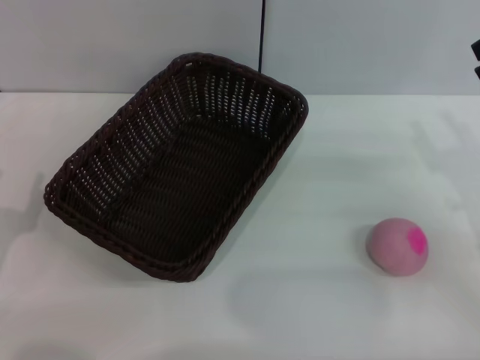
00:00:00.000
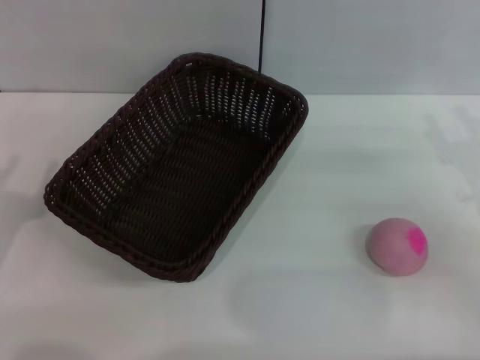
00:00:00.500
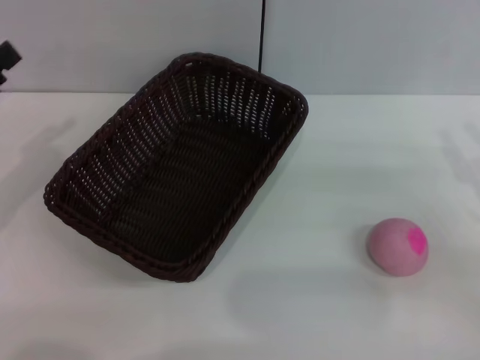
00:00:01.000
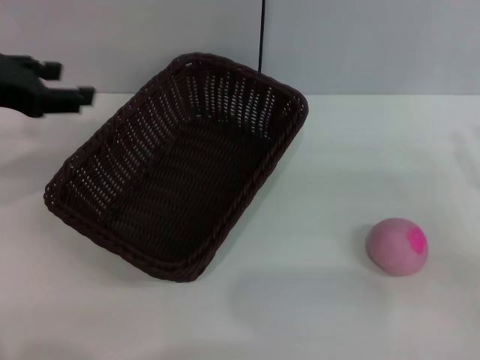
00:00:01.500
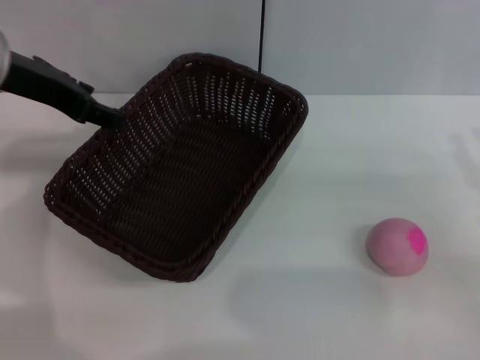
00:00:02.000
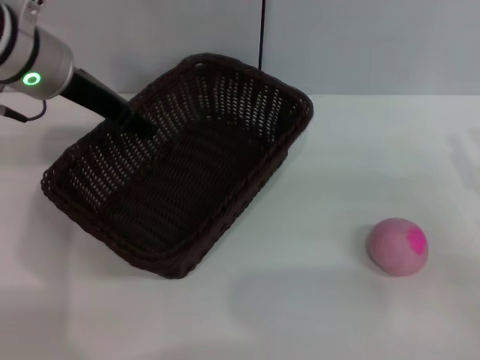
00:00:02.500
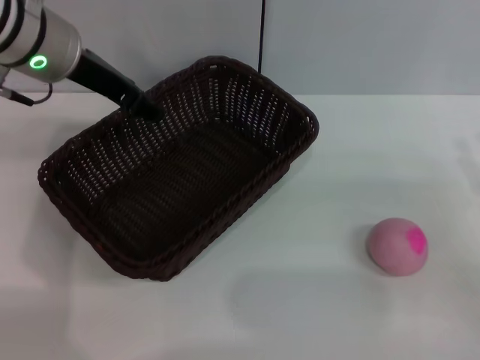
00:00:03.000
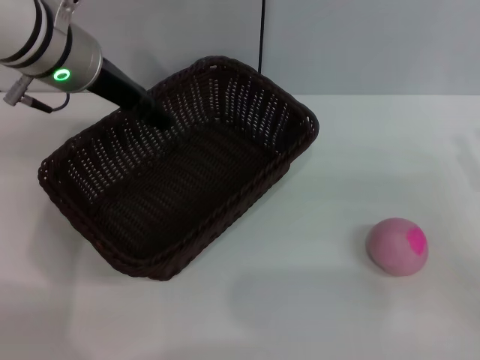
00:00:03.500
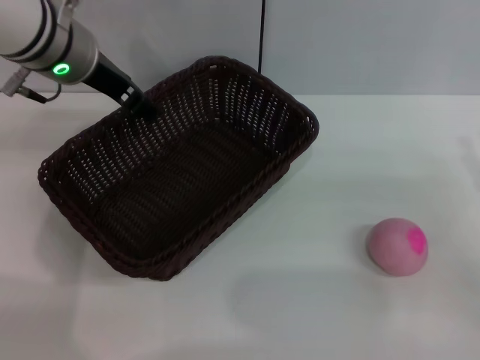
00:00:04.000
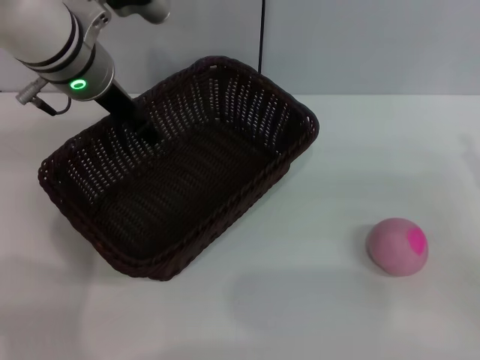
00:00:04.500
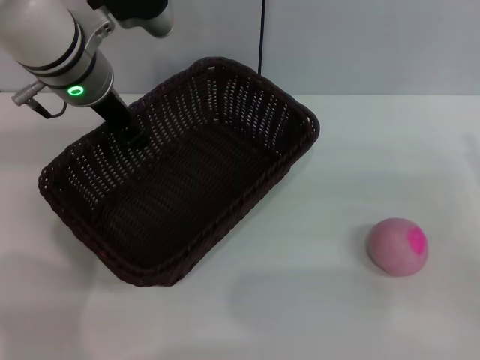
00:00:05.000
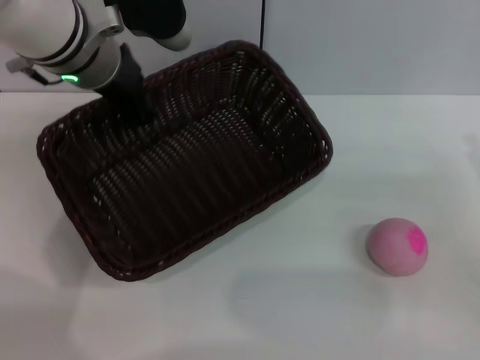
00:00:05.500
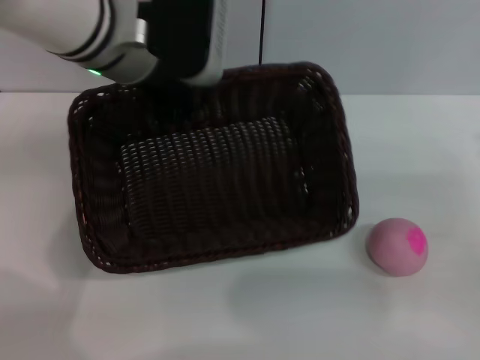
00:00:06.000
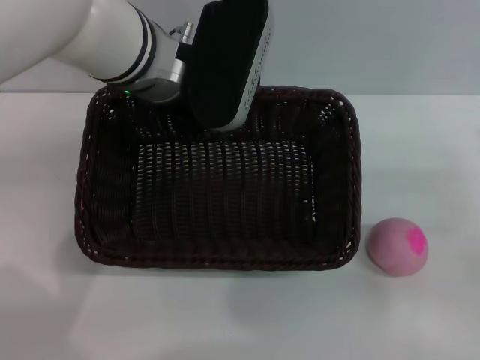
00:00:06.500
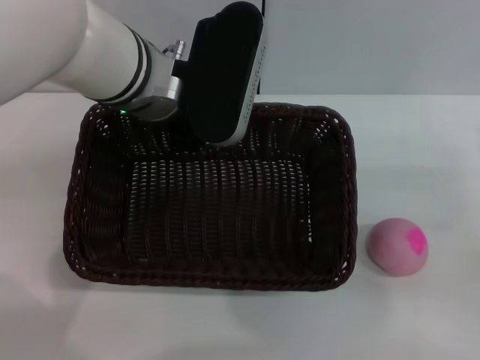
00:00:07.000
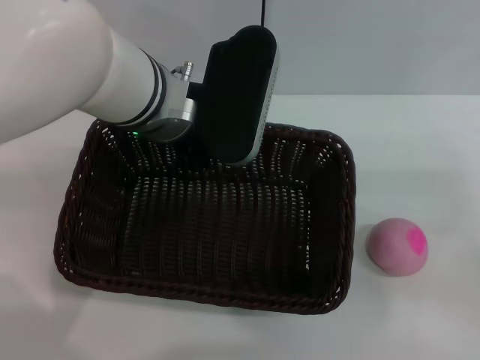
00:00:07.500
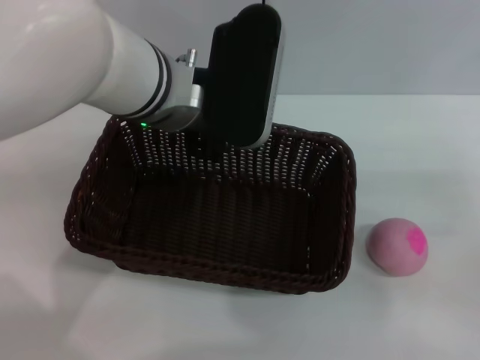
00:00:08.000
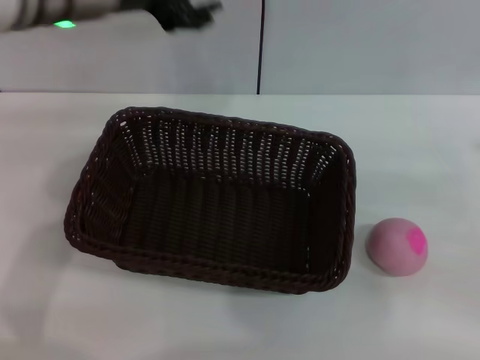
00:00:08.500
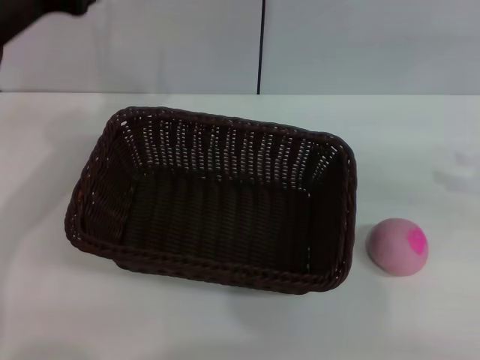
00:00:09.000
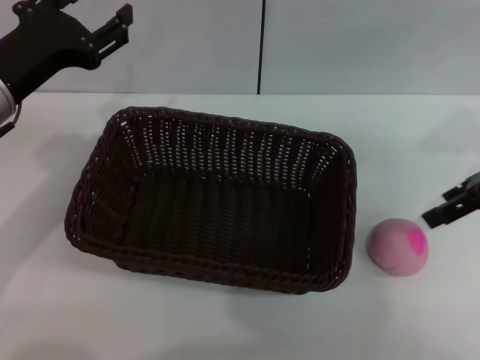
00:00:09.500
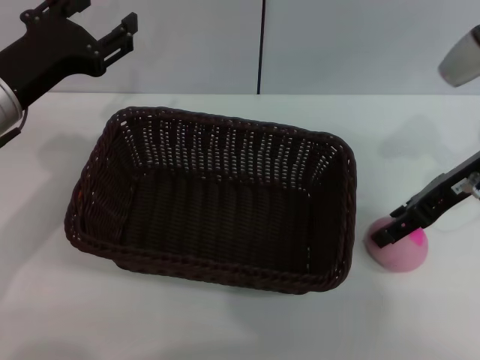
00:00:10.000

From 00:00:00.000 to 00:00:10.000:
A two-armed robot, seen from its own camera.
Step, from 00:00:00.000 to 00:00:05.500: Pick up the dark basket with the left gripper.
Step, from 00:00:06.000 to 00:00:08.000: Place the dark basket in the center of view with the right gripper.
From 00:00:00.000 to 00:00:02.000: The left gripper shifts some 30 cm upward, forward and to the right.
From 00:00:02.000 to 00:00:04.000: The left gripper is displaced to the right by some 5 cm.
From 00:00:04.000 to 00:00:06.000: The left gripper heads to the right, covering approximately 5 cm, and closes its fingers.
From 00:00:06.000 to 00:00:08.000: The left gripper ends up some 5 cm from where it was, and opens its fingers.
From 00:00:08.000 to 00:00:10.000: The right gripper shifts roughly 20 cm forward, to the left and upward. The left gripper heads to the left, covering roughly 15 cm.

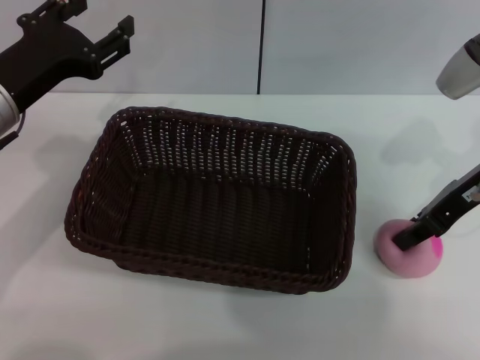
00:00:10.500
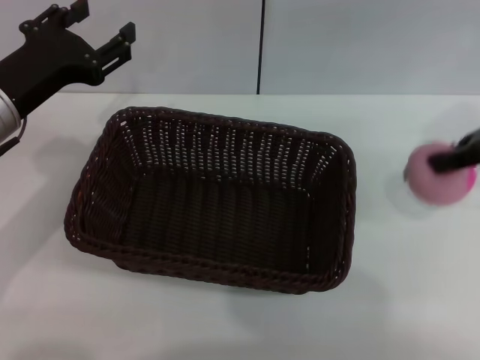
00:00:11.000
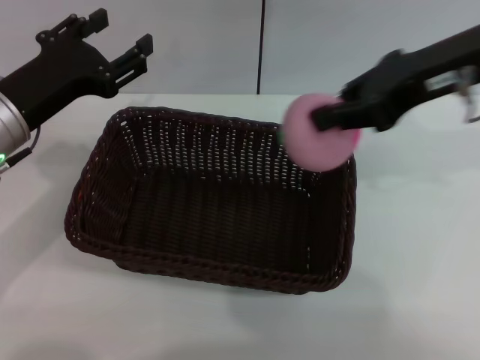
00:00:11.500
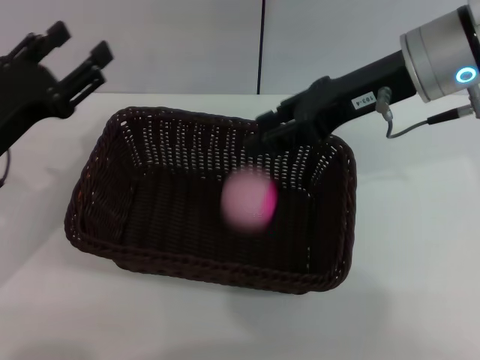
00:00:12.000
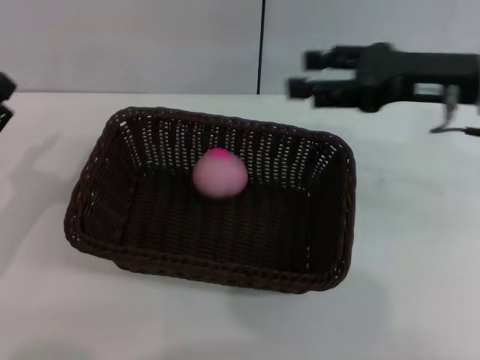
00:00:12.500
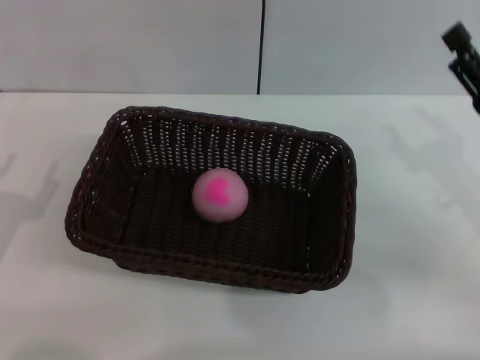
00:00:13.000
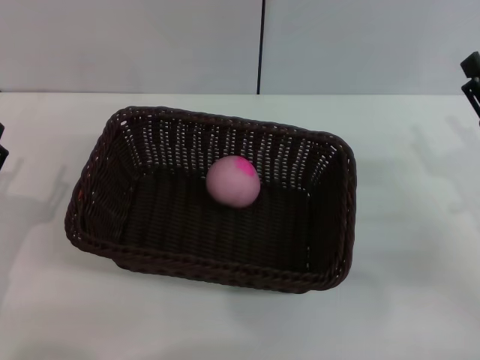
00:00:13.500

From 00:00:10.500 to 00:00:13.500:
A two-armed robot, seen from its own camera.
Step, from 00:00:11.500 to 00:00:12.000: Place the peach into the basket with the left gripper.
From 00:00:10.500 to 00:00:12.000: The right gripper travels to the left and upward by roughly 10 cm; the left gripper changes place by about 5 cm.
From 00:00:12.000 to 00:00:13.500: The left gripper goes about 10 cm backward and downward. Meanwhile the right gripper moves downward, to the right and backward, roughly 25 cm, and opens its fingers.

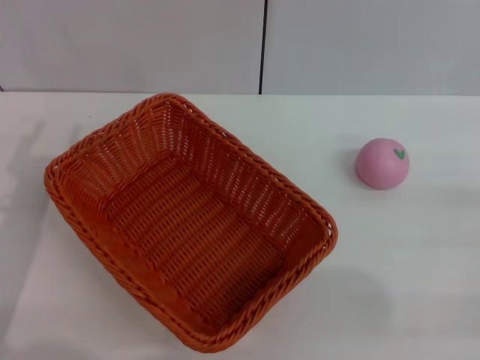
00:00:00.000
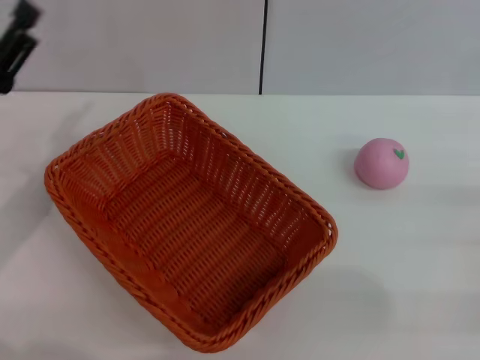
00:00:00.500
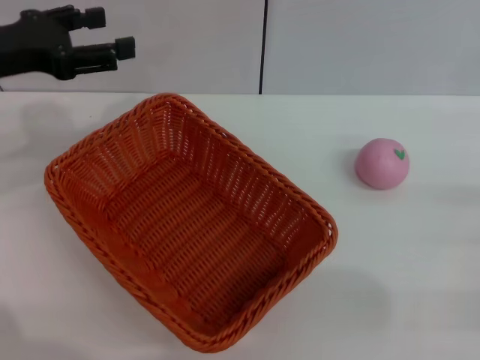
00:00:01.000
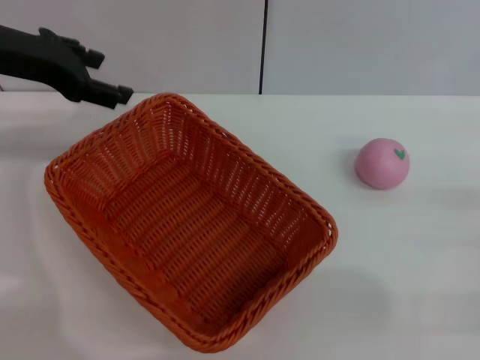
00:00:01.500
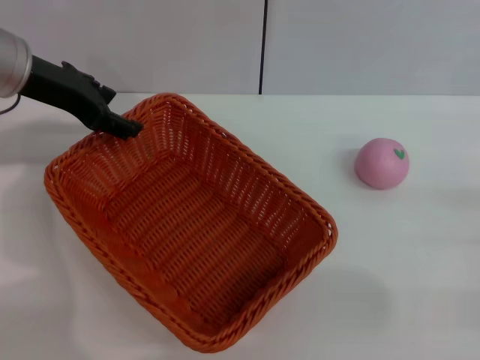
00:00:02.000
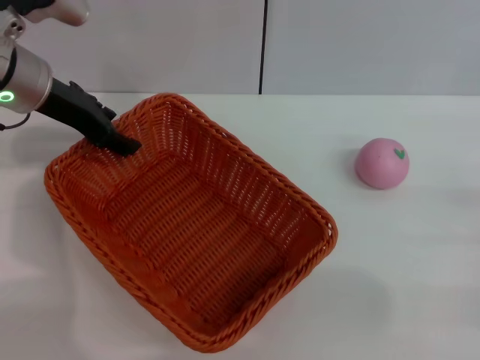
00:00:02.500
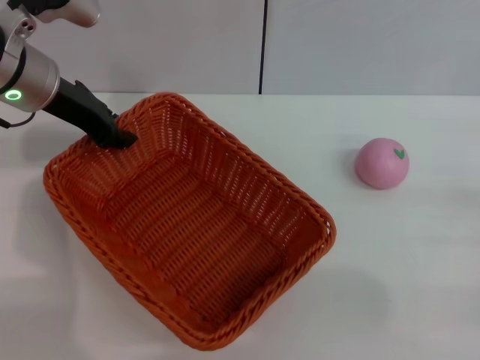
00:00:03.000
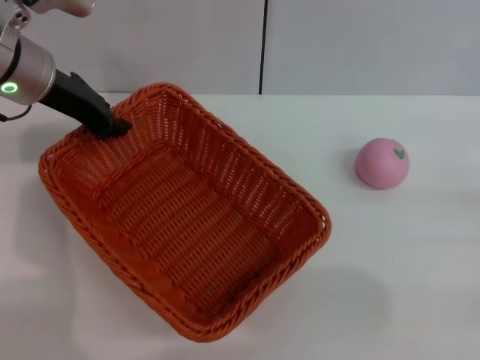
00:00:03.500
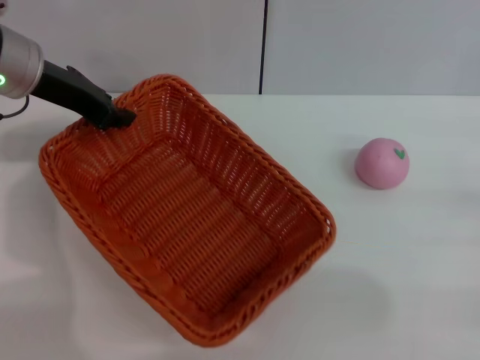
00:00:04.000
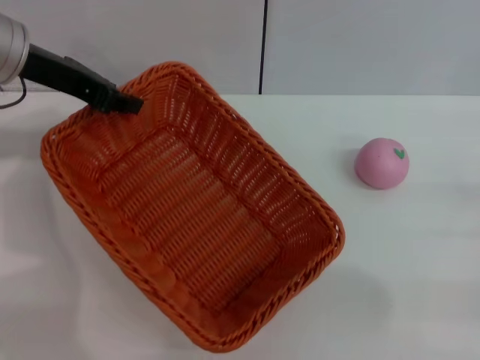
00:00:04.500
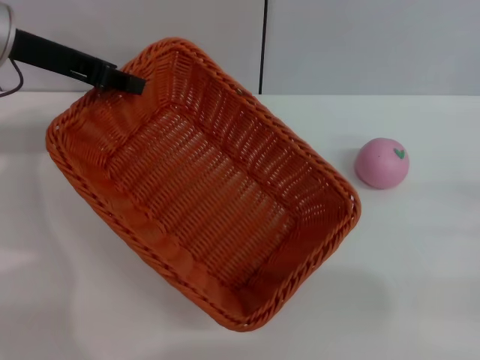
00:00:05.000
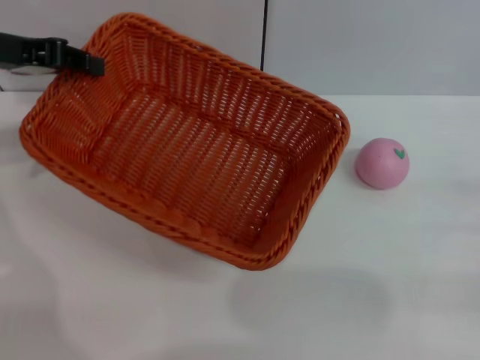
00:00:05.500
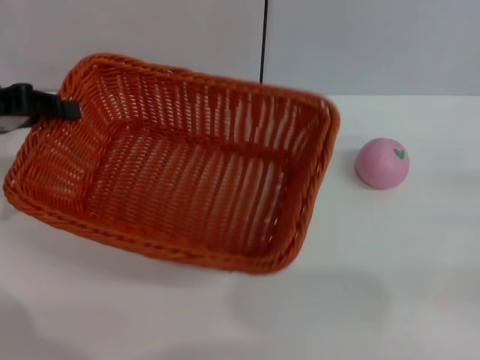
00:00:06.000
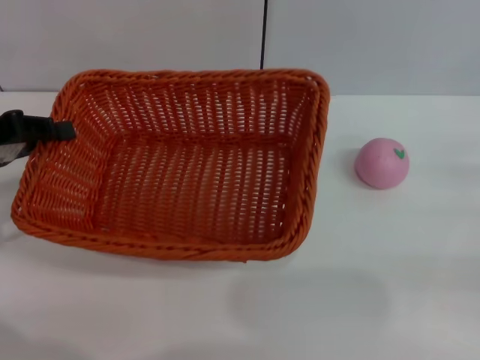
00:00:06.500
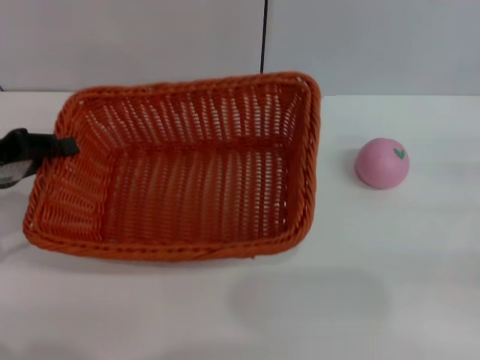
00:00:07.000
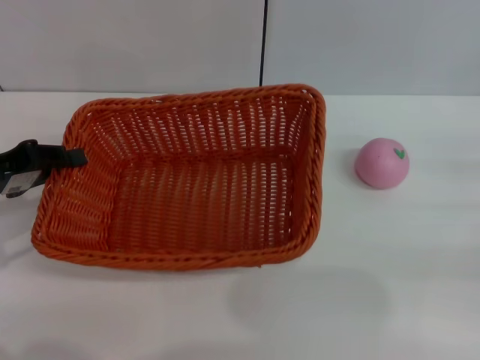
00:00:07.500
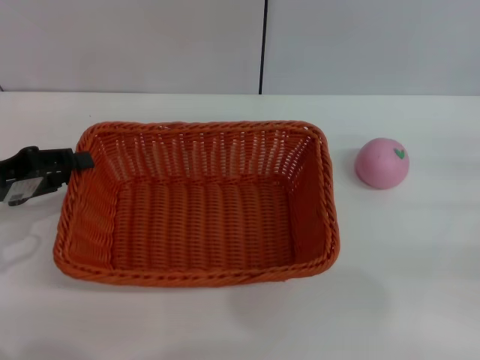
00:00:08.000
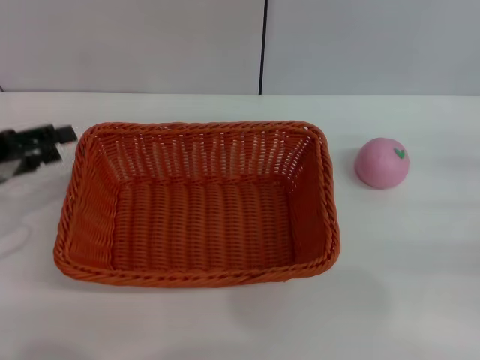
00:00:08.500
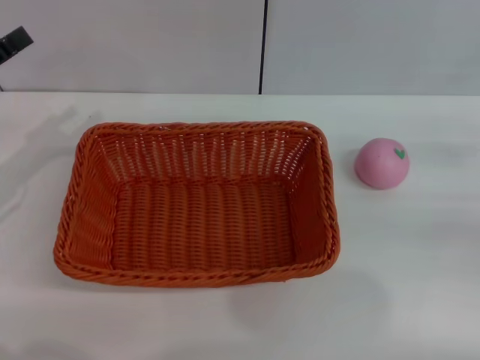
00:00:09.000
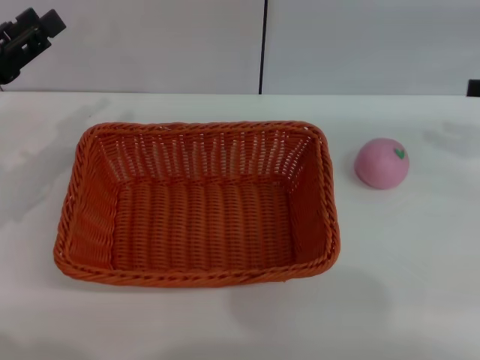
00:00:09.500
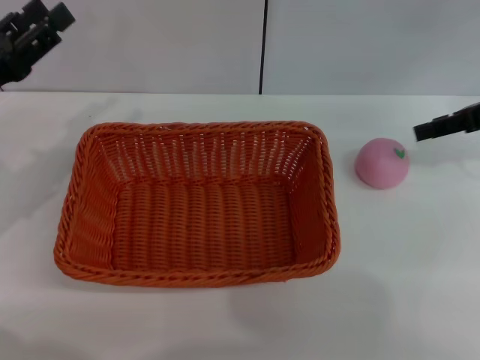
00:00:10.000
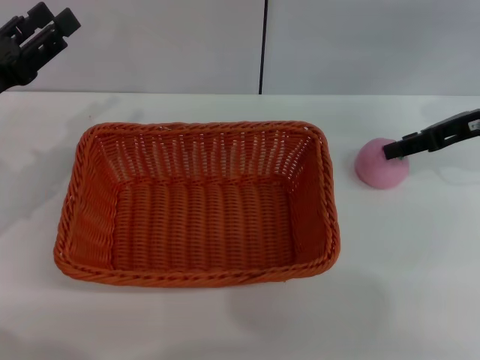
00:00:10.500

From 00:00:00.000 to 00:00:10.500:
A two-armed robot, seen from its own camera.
Step, from 00:00:00.000 to 00:00:04.500: Pick up the light basket with the left gripper.
Step, from 00:00:05.000 to 00:00:08.500: Place the light basket in the center of view with the right gripper.
From 00:00:00.000 to 00:00:02.000: The left gripper travels forward and upward by roughly 20 cm.
From 00:00:02.000 to 00:00:04.000: The left gripper closes up.
From 00:00:04.000 to 00:00:06.500: The left gripper moves to the left and backward, roughly 15 cm.
From 00:00:06.500 to 00:00:08.500: The left gripper opens.
From 00:00:08.500 to 00:00:10.500: The right gripper travels forward, to the left and upward by roughly 20 cm.

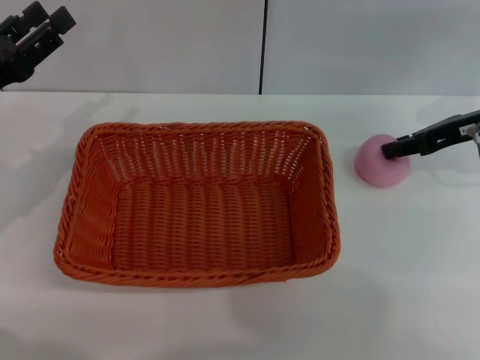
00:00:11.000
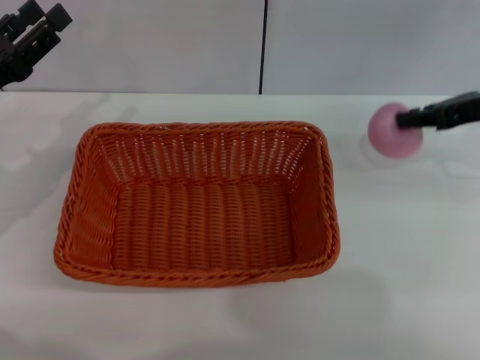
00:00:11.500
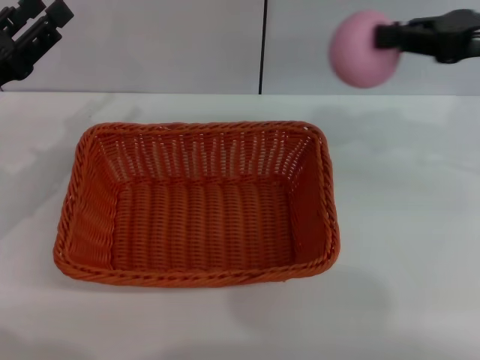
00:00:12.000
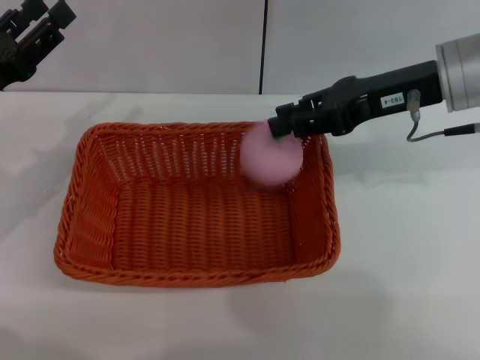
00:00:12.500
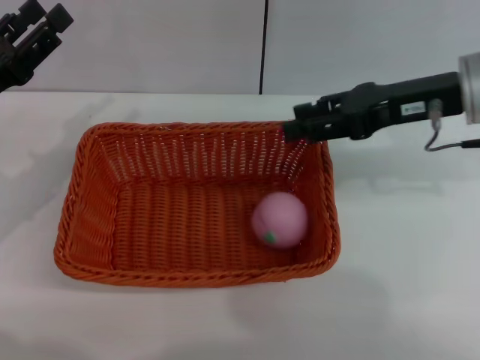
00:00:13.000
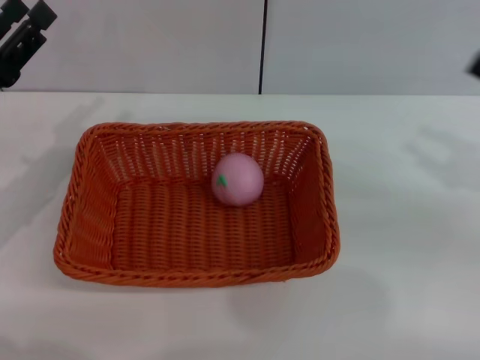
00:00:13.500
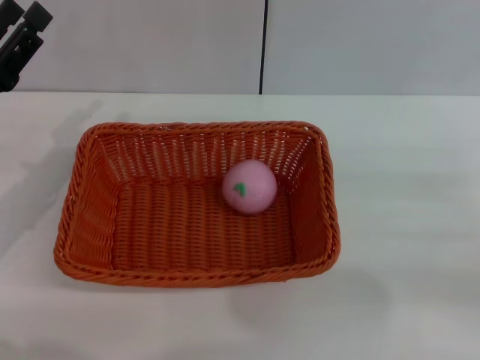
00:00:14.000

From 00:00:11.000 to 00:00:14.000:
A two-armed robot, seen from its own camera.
From 00:00:11.000 to 00:00:12.500: The right gripper is displaced to the left and upward by about 10 cm, and closes up.
From 00:00:12.500 to 00:00:14.000: The right gripper travels to the right, backward and downward by approximately 25 cm, and opens up.
